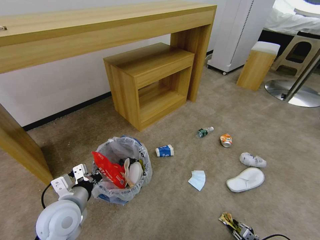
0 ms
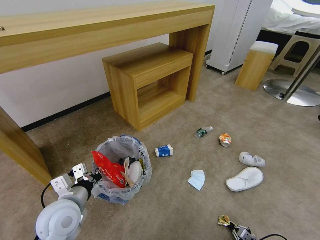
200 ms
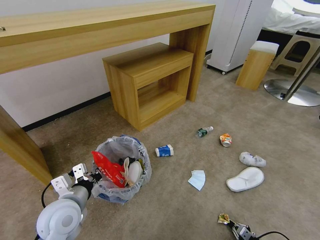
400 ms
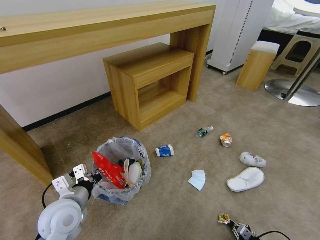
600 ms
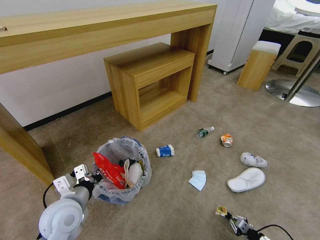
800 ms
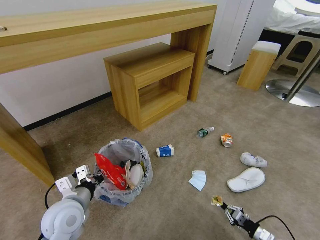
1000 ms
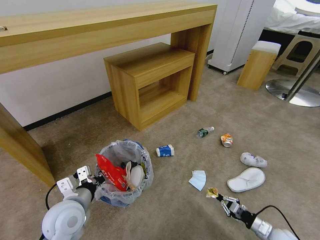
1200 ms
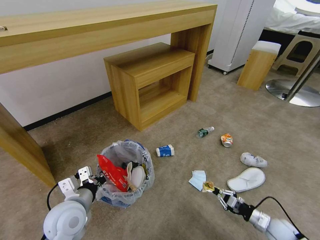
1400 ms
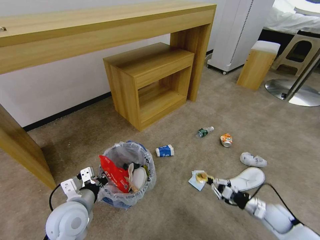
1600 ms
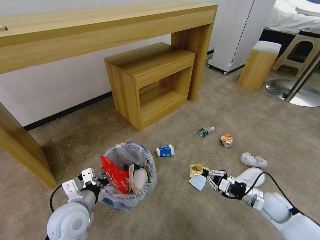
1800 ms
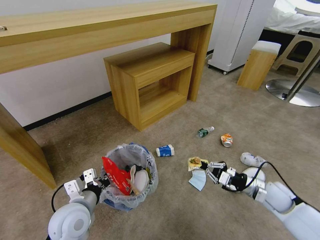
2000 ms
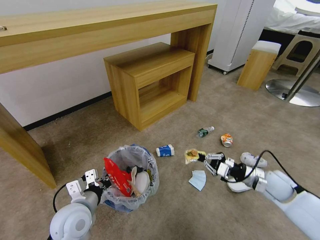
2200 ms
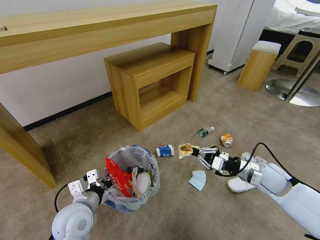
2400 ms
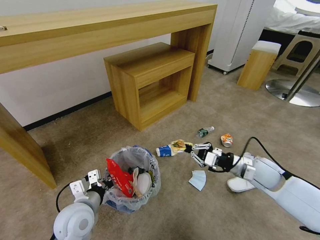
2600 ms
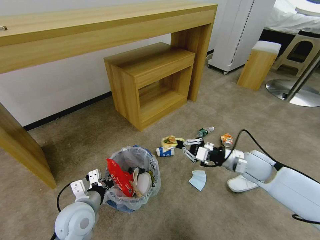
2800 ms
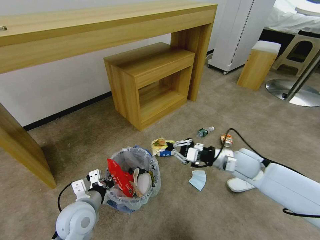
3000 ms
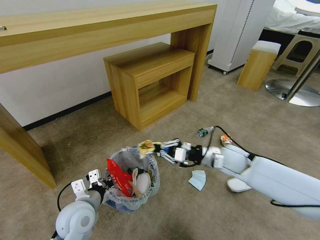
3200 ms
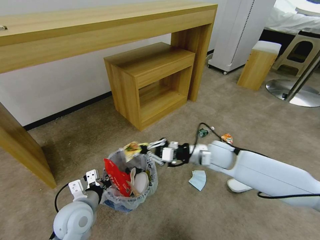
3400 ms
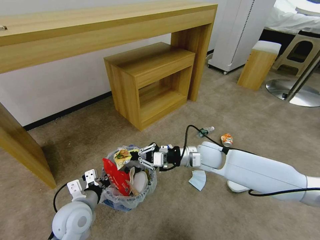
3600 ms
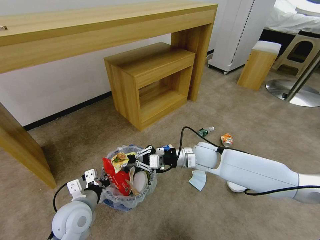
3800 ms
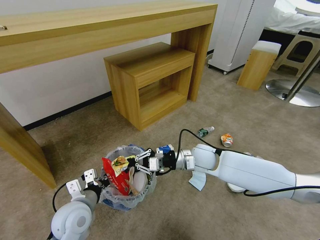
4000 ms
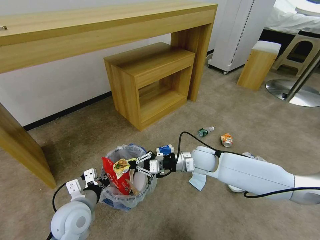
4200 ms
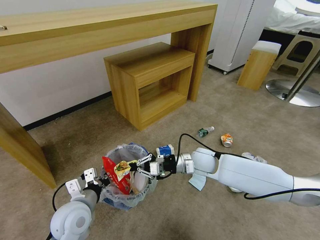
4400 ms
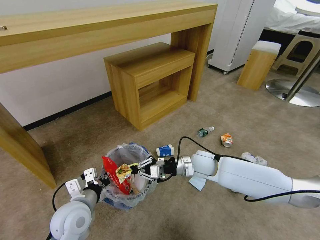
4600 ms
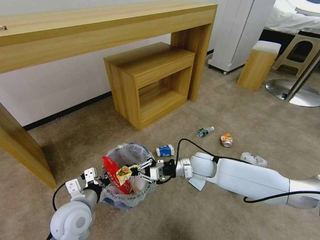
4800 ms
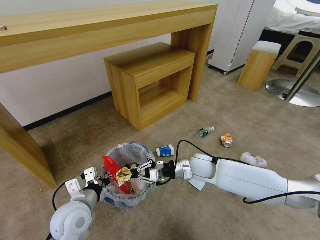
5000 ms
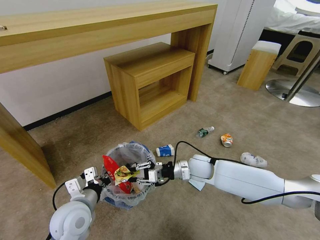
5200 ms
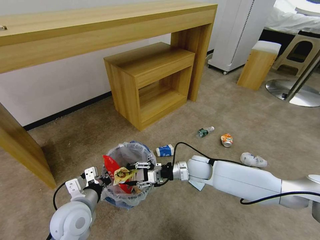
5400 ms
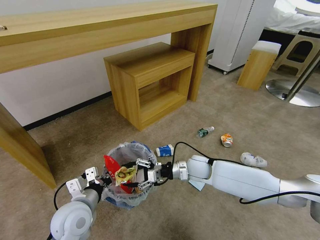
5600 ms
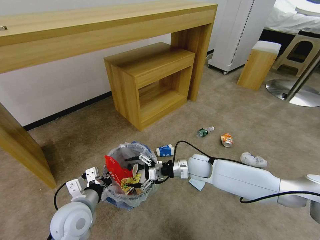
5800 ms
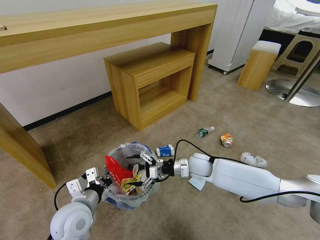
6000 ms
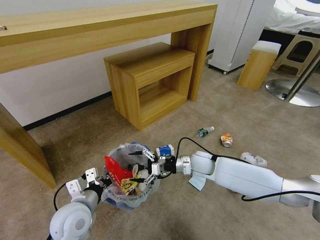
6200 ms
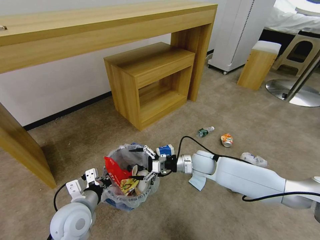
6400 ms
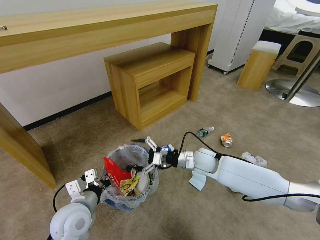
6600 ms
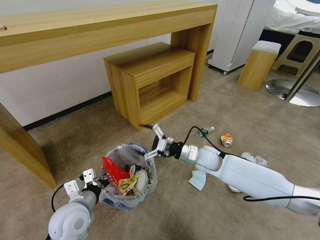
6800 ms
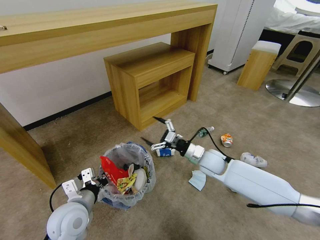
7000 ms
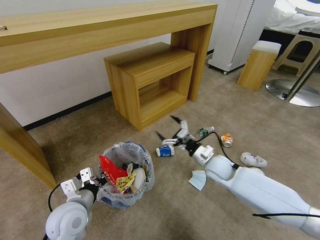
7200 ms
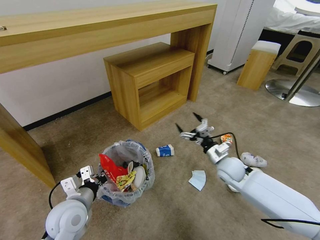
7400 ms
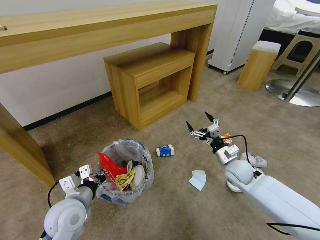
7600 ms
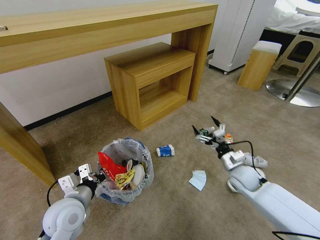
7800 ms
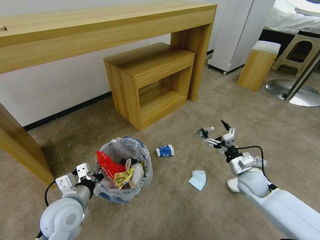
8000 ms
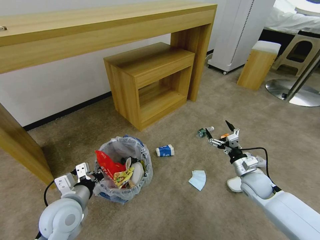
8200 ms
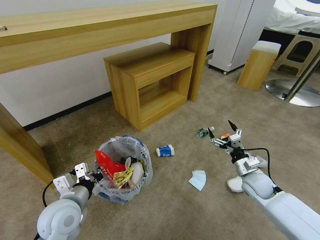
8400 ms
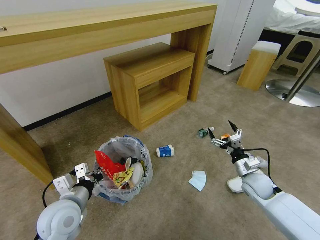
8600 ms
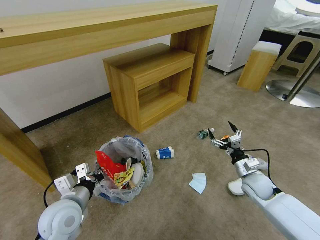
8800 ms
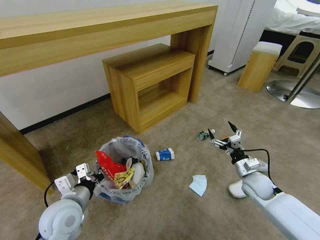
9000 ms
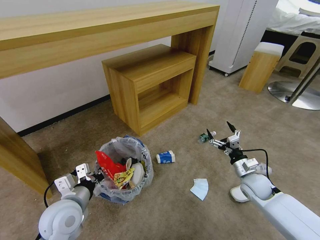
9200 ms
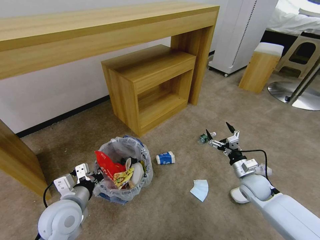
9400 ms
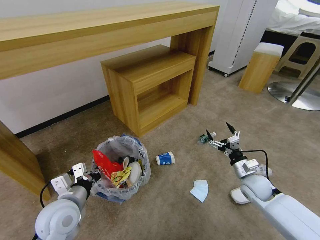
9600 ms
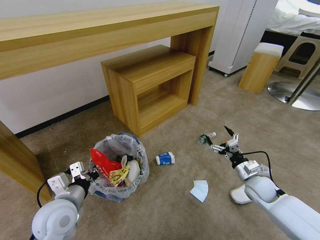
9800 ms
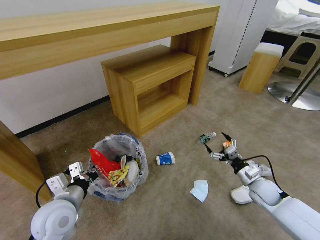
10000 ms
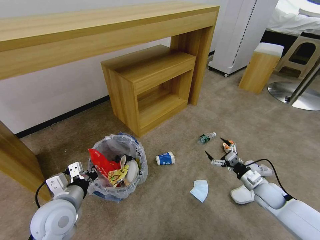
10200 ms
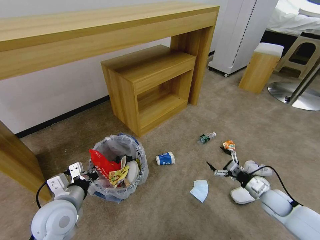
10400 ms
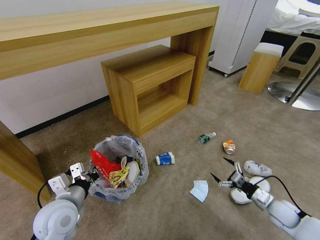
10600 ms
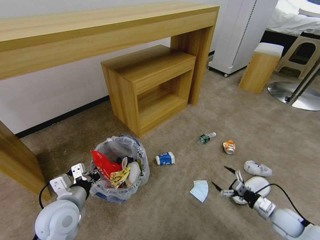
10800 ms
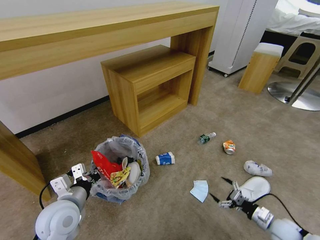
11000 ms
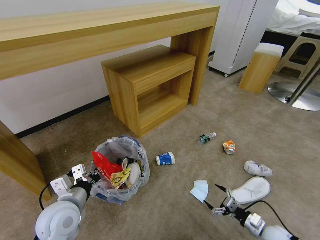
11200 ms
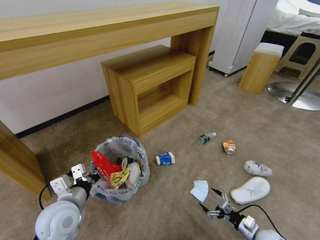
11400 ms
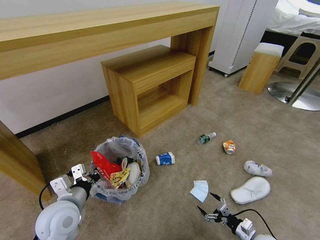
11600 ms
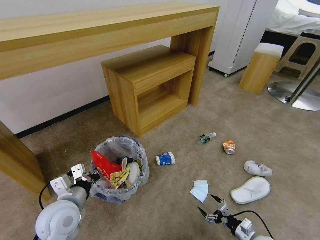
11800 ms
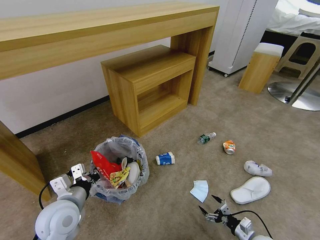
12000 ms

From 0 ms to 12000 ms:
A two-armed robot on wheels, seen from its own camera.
Task of the whole recording: Pick up the trash bin and place the garbage on the floor into it.
From 0 ms to 1600 ms: The right gripper shifts about 20 cm upward, forward and to the left.
From 1600 ms to 3000 ms: The right gripper goes approximately 25 cm upward, to the left and forward.
From 3000 ms to 4400 ms: The right gripper moves to the left, approximately 10 cm.
From 4400 ms to 6000 ms: The right gripper opens its fingers.
From 6000 ms to 7600 ms: The right gripper shifts roughly 15 cm to the right.
From 7600 ms to 9000 ms: The right gripper shifts approximately 5 cm to the right.
From 9000 ms to 10400 ms: The right gripper travels to the right and downward by about 10 cm.
From 10400 ms to 12000 ms: The right gripper travels backward and downward by approximately 15 cm.

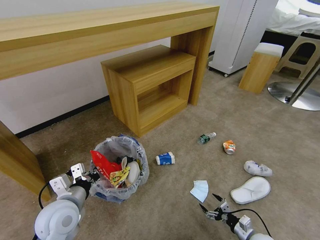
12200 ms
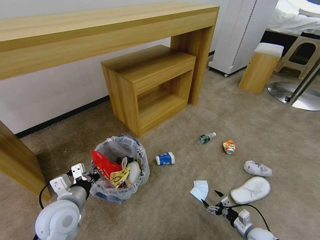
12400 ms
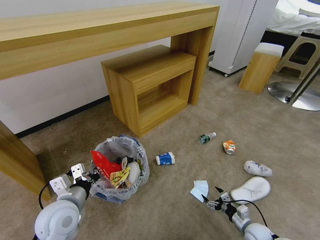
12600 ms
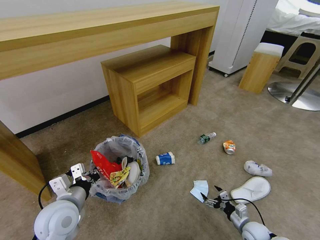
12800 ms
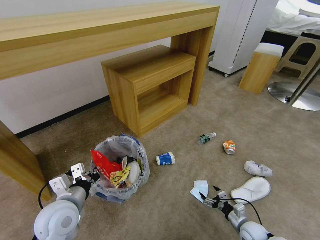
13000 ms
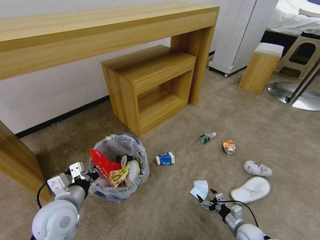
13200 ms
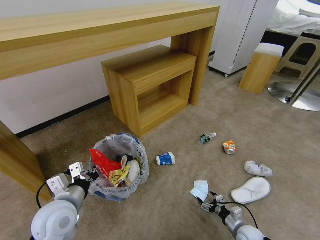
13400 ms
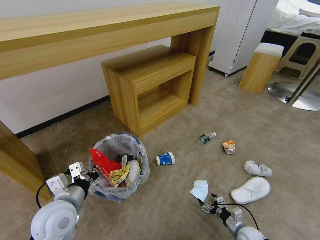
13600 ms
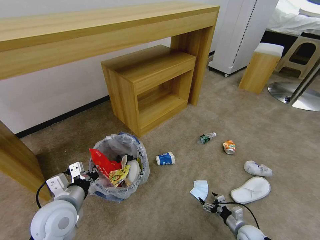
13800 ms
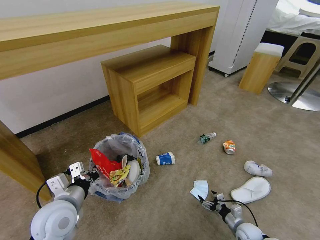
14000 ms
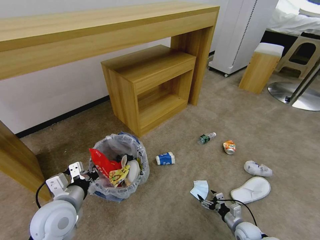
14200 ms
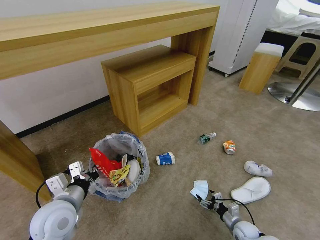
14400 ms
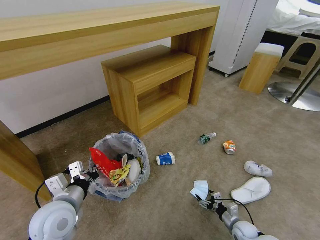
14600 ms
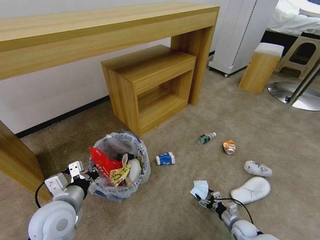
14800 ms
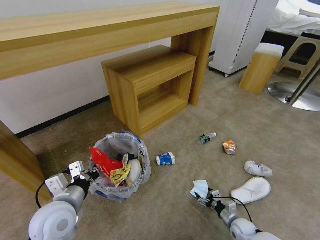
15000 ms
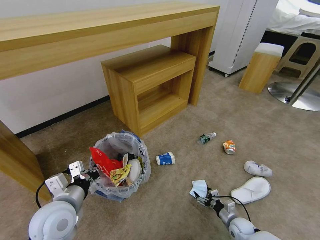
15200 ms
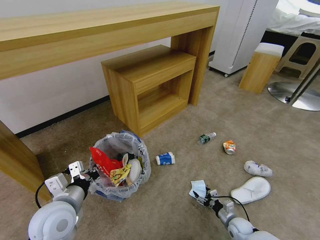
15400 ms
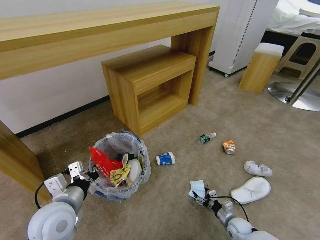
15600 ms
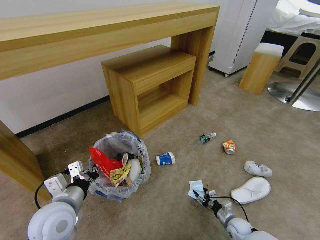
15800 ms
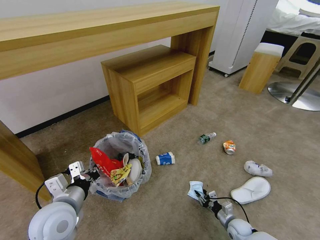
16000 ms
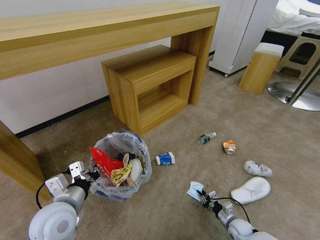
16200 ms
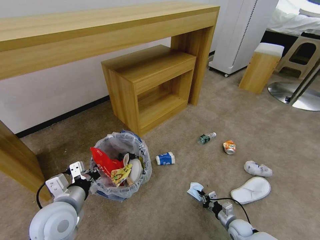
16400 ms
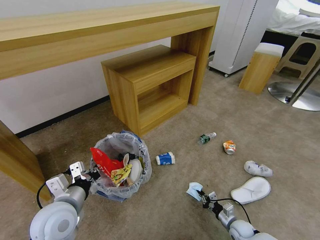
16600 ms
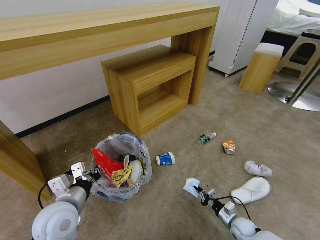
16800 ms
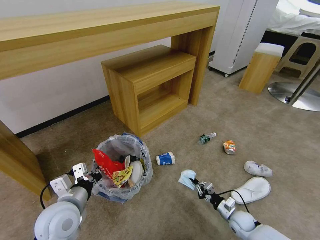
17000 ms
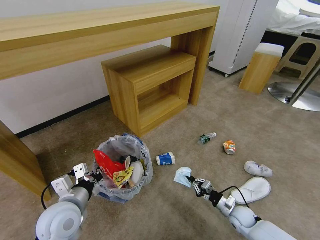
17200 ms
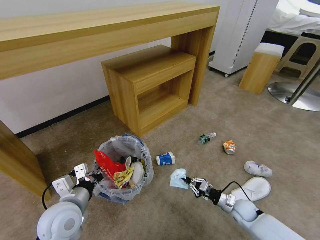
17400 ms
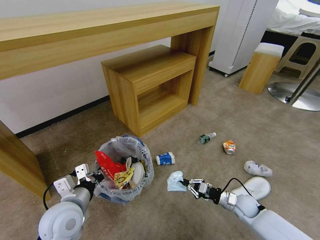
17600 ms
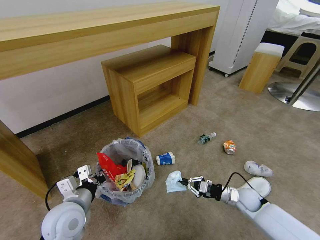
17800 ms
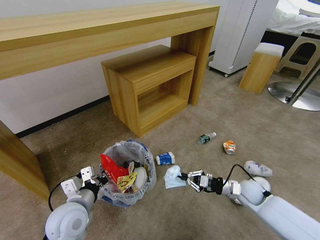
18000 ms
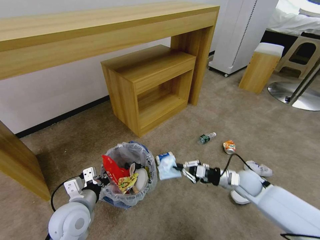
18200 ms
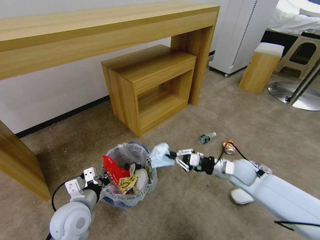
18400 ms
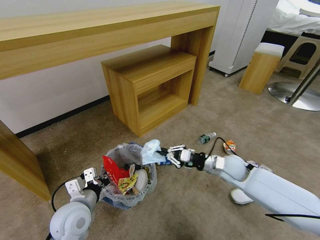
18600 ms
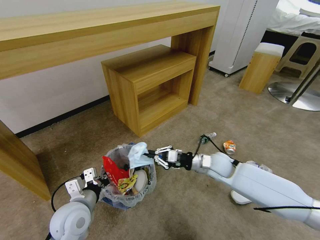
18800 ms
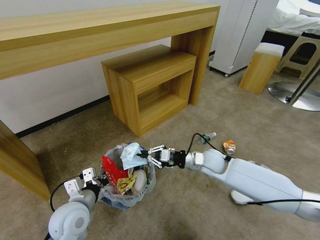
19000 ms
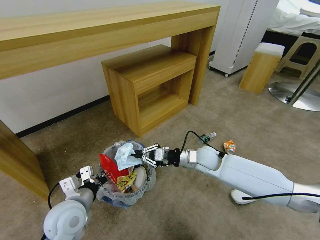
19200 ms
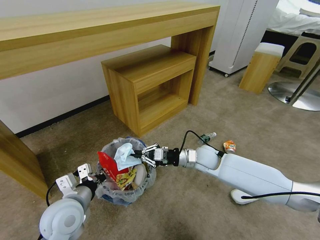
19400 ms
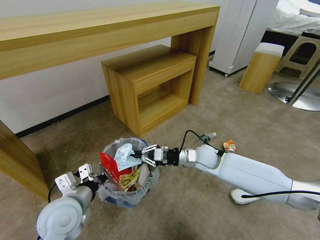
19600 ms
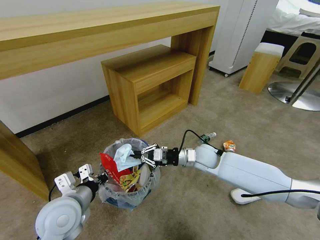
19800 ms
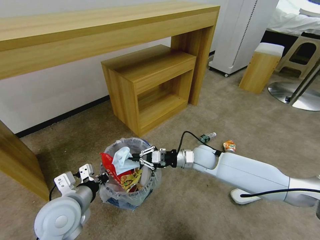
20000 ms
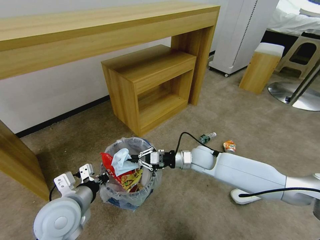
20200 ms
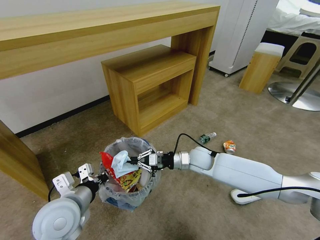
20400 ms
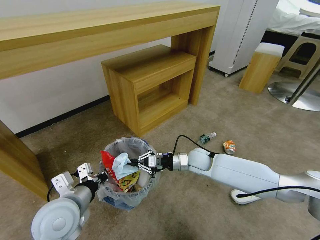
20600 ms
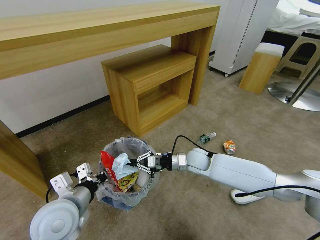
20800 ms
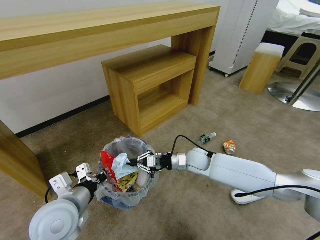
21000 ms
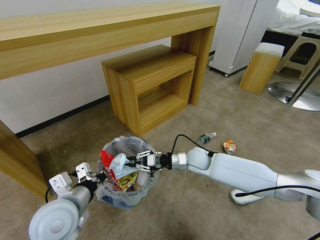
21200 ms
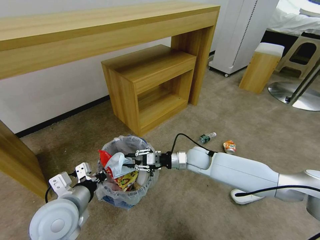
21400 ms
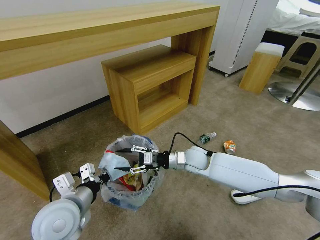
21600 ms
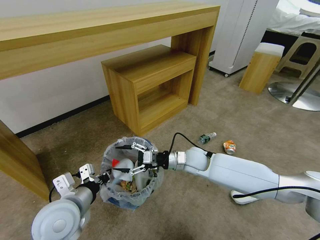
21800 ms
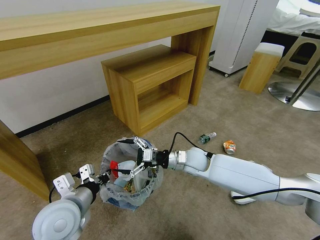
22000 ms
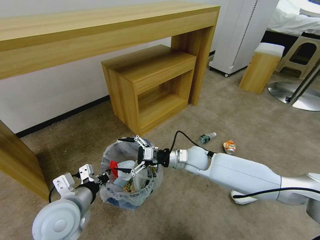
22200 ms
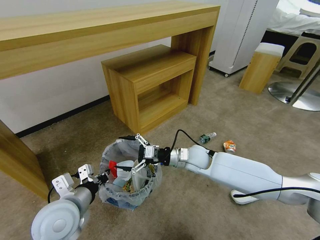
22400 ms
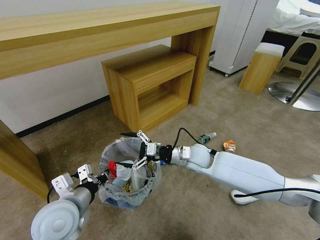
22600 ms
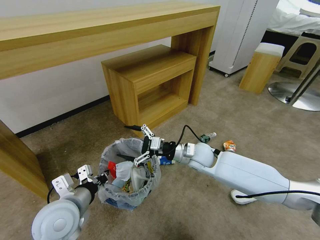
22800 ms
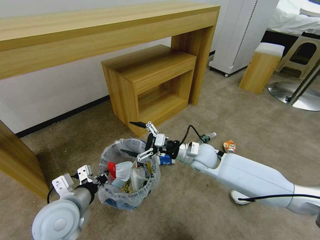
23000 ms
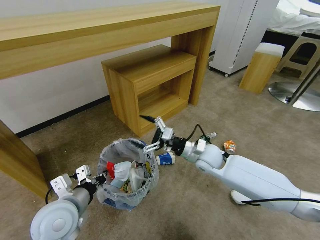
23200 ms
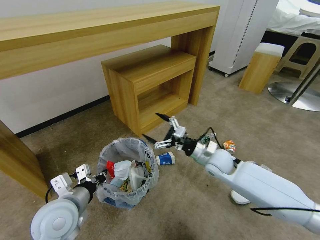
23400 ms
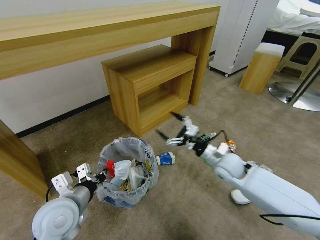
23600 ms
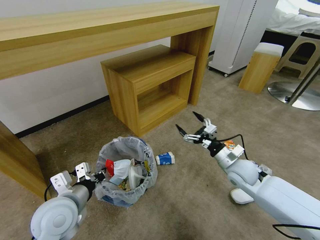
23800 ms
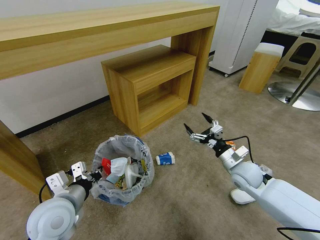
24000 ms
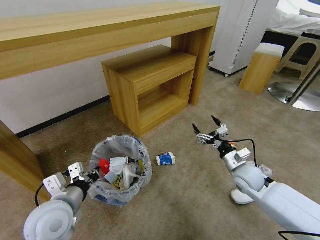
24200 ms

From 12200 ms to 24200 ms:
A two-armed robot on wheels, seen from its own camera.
Task of the whole recording: Pick up the trash bin and place the garbage on the floor into it.
From 12200 ms to 13800 ms: The grippers make only small movements.
From 13800 ms to 15200 ms: The grippers make only small movements.
From 15200 ms to 16600 ms: The right gripper closes.
From 16600 ms to 18200 ms: The right gripper travels upward and forward by about 25 cm.
From 18200 ms to 19800 ms: The right gripper heads to the left, forward and upward, covering approximately 20 cm. The left gripper goes some 5 cm upward.
From 19800 ms to 21200 ms: There are only small adjustments of the grippers.
From 21200 ms to 22600 ms: The right gripper opens.
From 22600 ms to 24200 ms: The right gripper heads to the right, covering some 20 cm.
